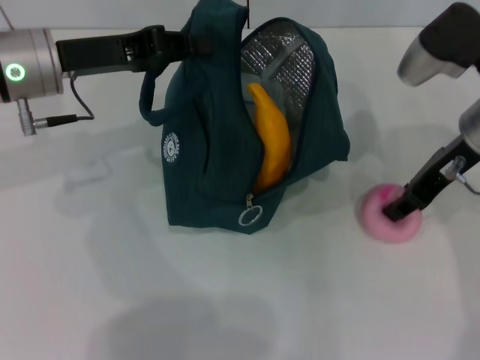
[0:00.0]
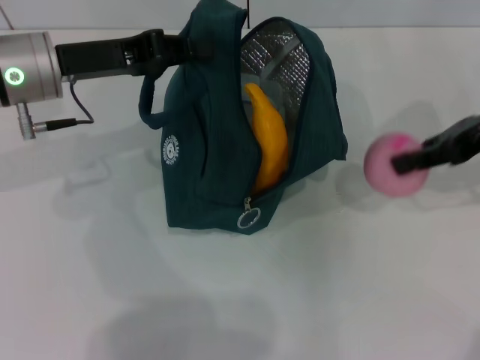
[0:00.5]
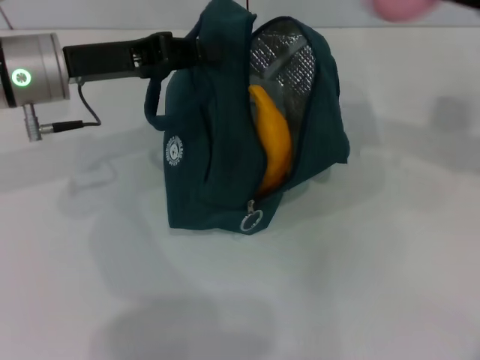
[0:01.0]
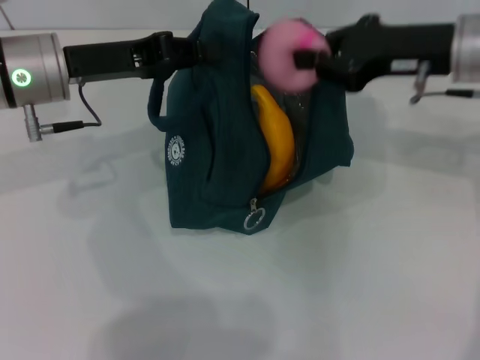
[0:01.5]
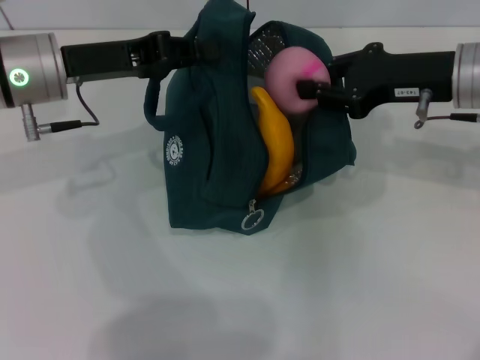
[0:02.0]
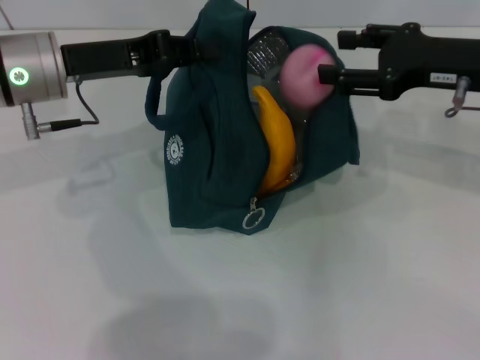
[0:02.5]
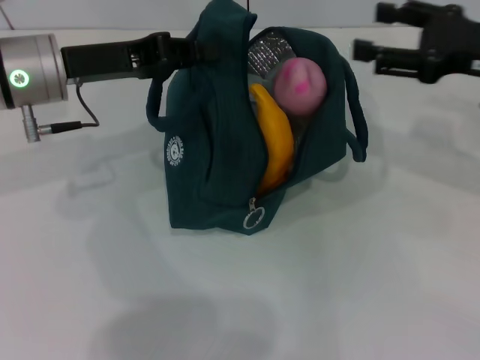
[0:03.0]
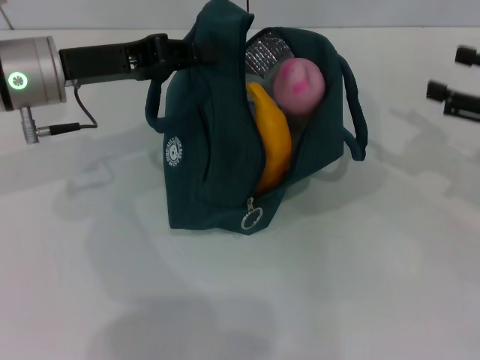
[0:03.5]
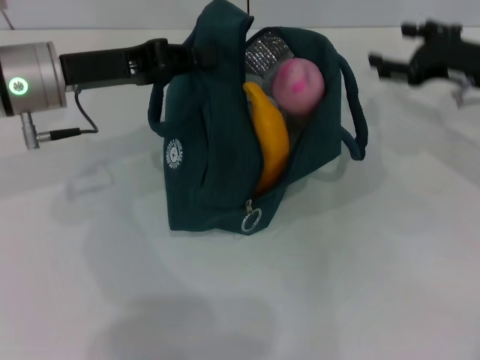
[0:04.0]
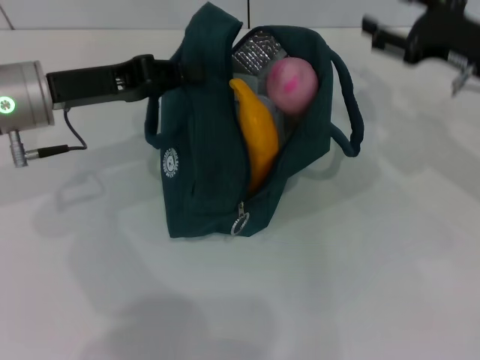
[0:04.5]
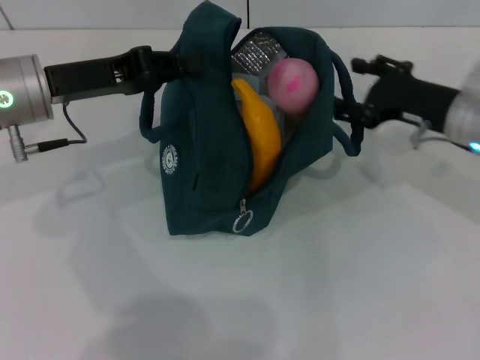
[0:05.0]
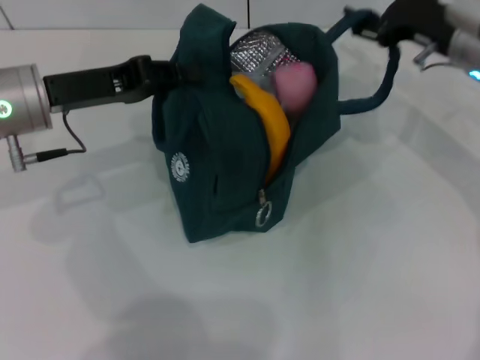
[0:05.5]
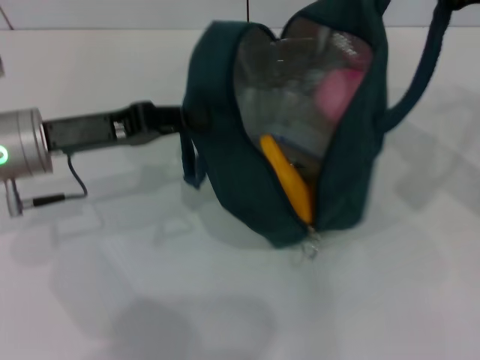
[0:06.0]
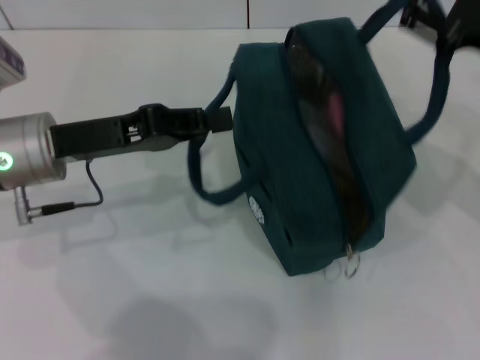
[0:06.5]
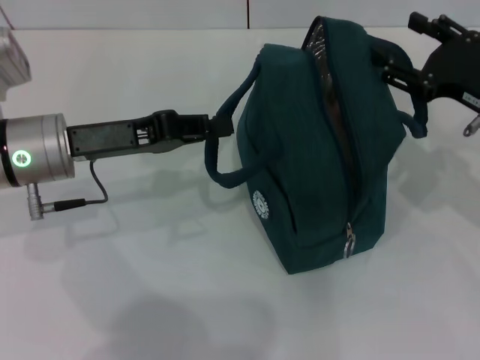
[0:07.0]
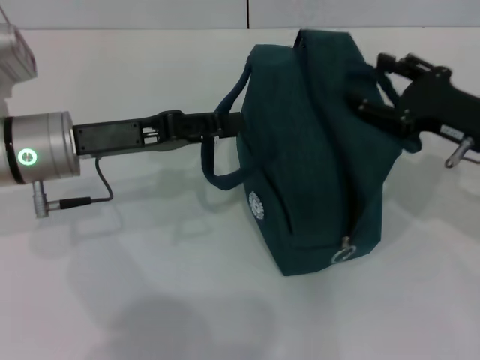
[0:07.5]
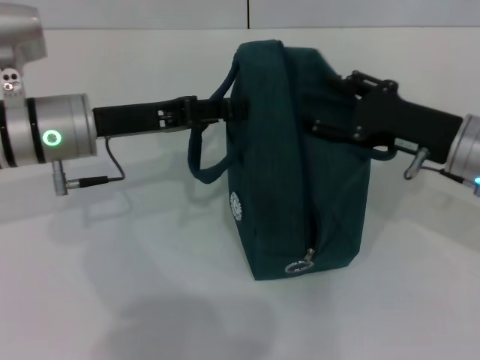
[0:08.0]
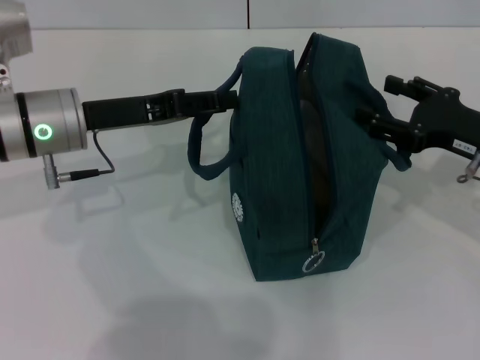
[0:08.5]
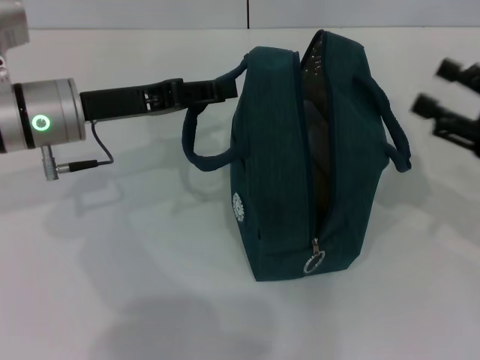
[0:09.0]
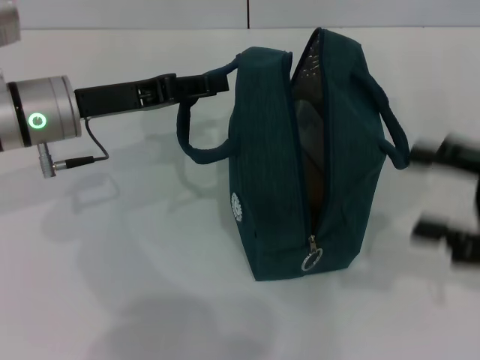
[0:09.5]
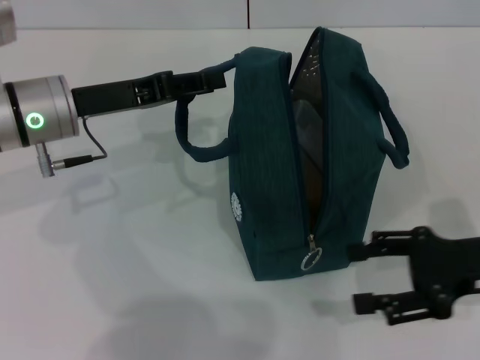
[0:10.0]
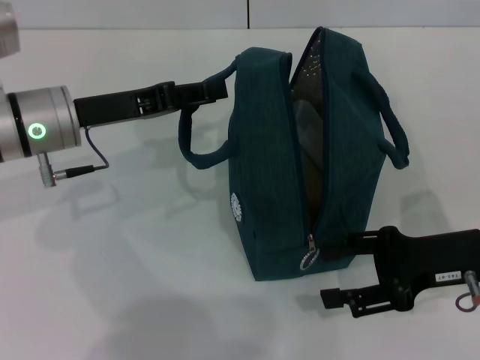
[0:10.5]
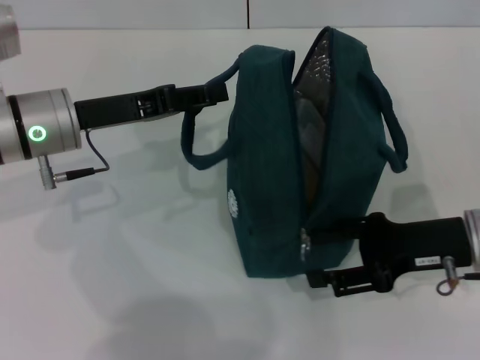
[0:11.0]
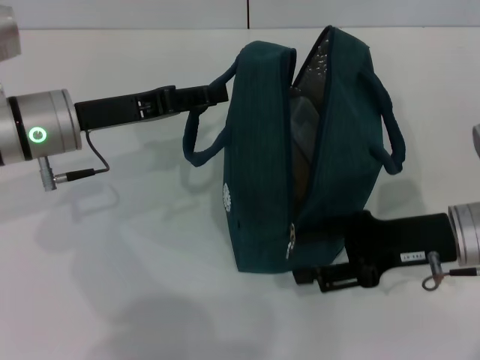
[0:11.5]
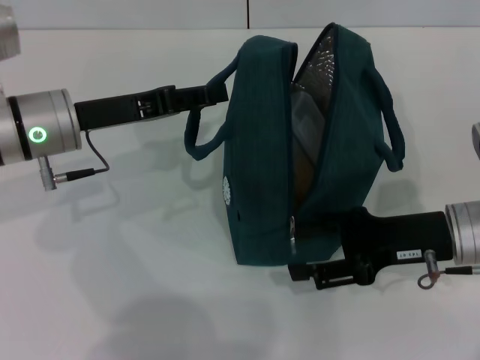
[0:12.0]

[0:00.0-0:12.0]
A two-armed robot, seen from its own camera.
Step, 3.0 to 7.0 s: Hold the lunch bag with your right hand.
Step, 7.5 to 8.5 s: Hold the lunch bag with your left hand.
0.0 to 2.0 s: The right gripper goes to the right and returns, some 10 cm each way, and closes up.
2.0 to 4.0 s: The right gripper travels to the right by approximately 5 cm, and opens.
4.0 to 6.0 s: The left gripper shifts by about 5 cm. Meanwhile the right gripper moves backward and upward, approximately 10 cm.
6.0 to 8.0 s: The left gripper opens up, while the right gripper travels downward by approximately 10 cm.
8.0 to 10.0 s: The right gripper is displaced backward and to the right by approximately 10 cm.
10.0 to 12.0 s: The right gripper heads to the left, covering roughly 5 cm.

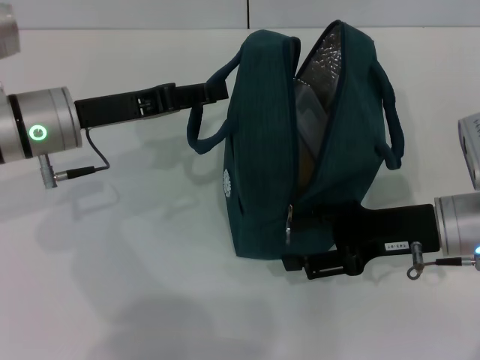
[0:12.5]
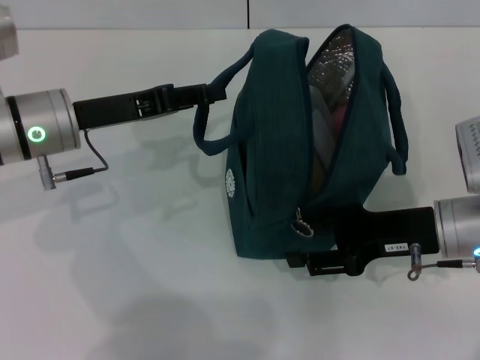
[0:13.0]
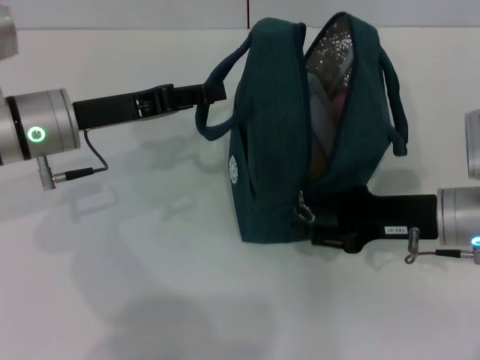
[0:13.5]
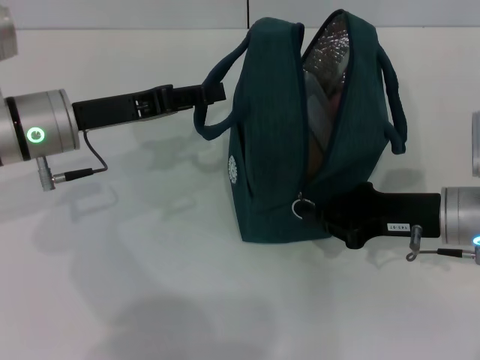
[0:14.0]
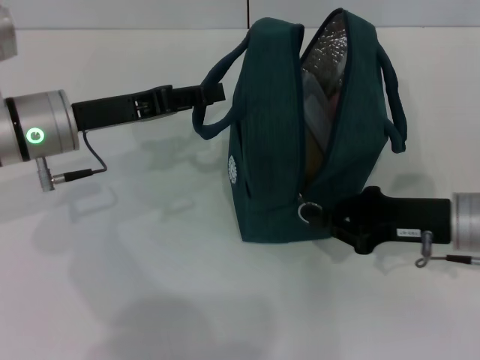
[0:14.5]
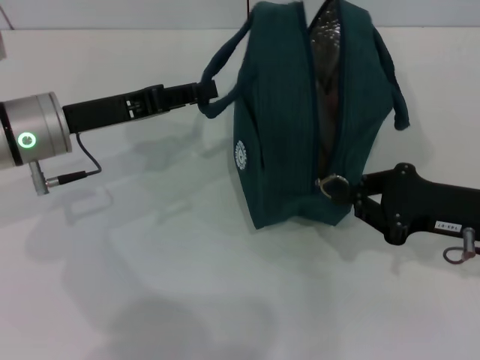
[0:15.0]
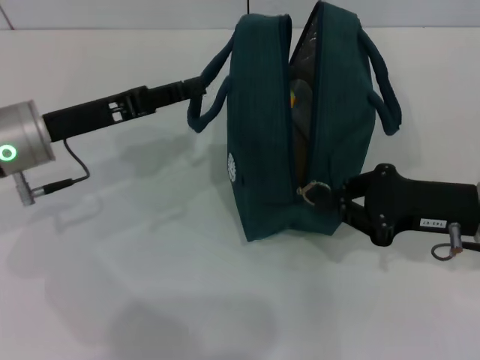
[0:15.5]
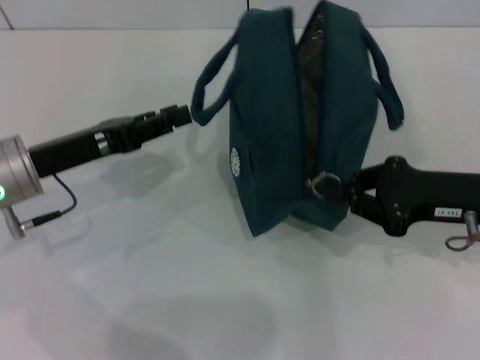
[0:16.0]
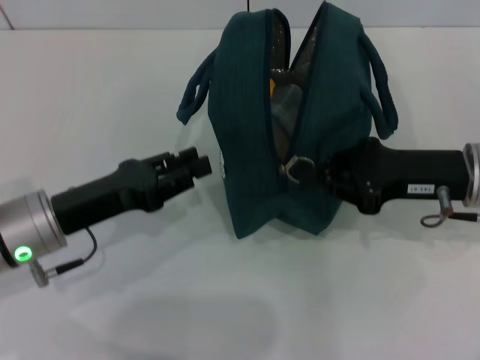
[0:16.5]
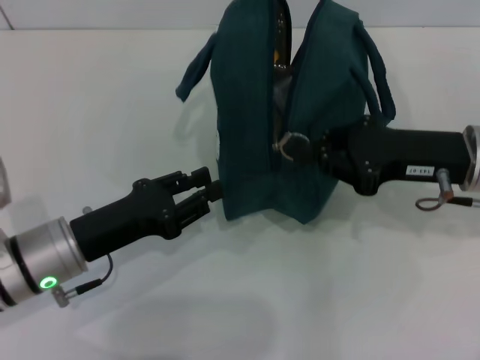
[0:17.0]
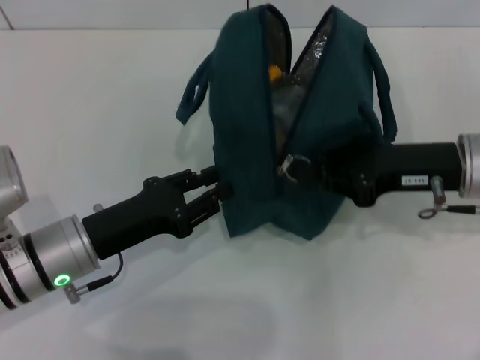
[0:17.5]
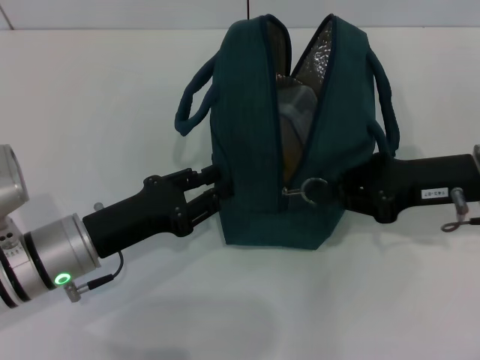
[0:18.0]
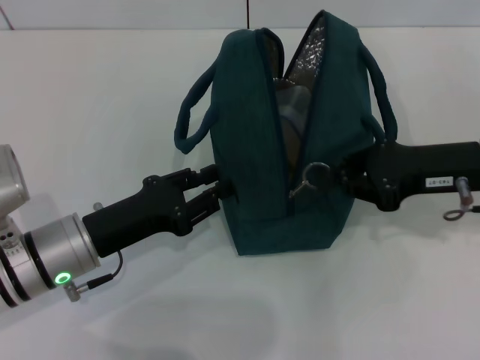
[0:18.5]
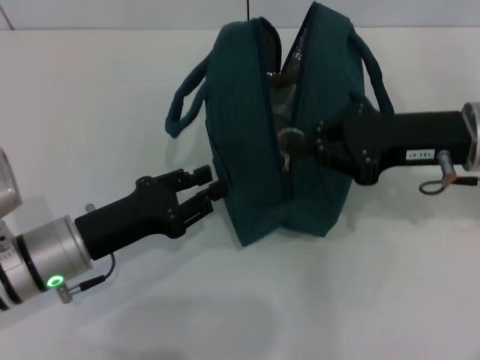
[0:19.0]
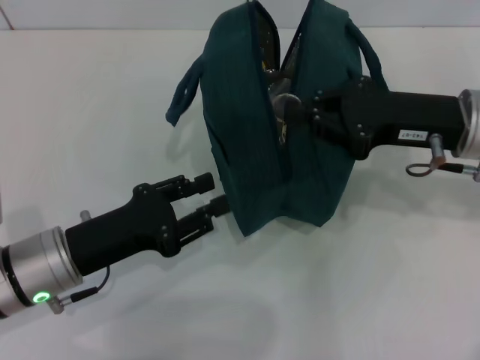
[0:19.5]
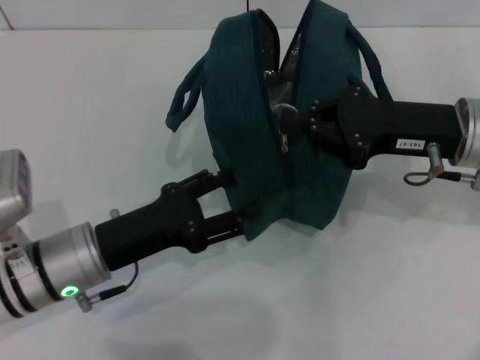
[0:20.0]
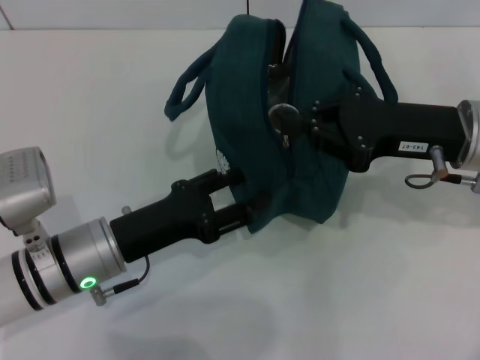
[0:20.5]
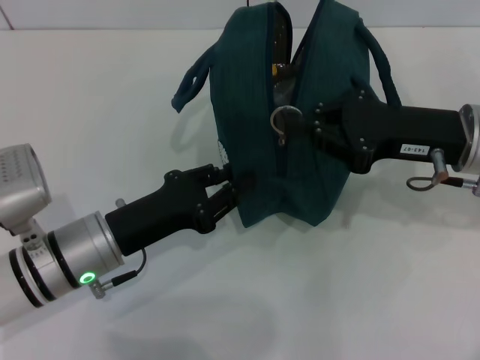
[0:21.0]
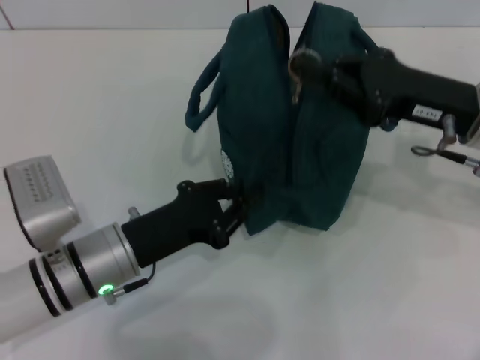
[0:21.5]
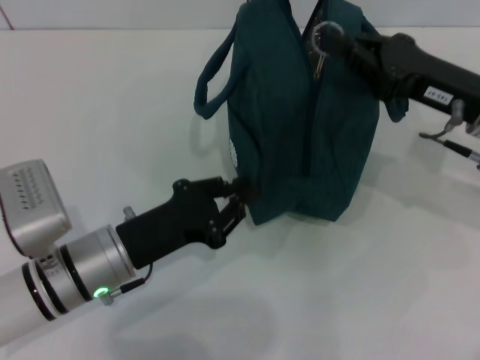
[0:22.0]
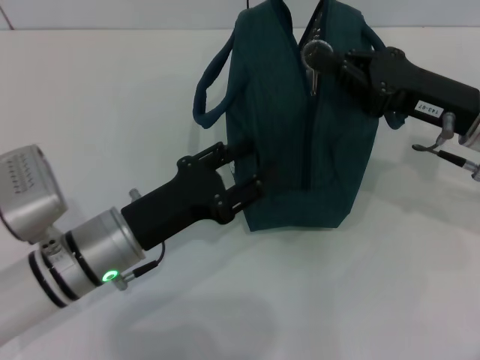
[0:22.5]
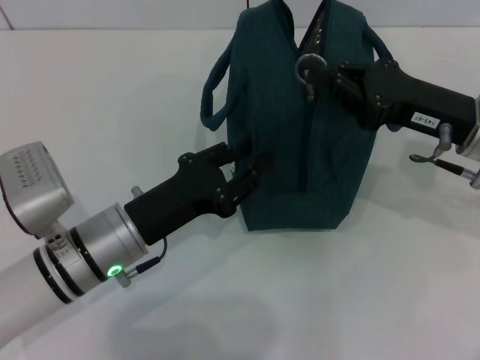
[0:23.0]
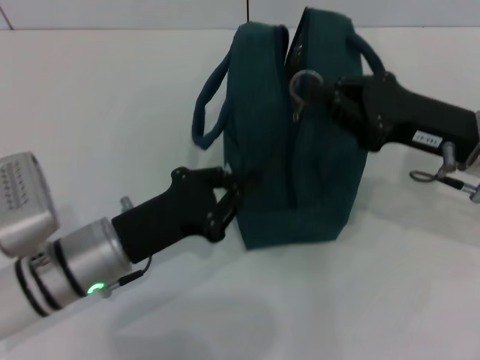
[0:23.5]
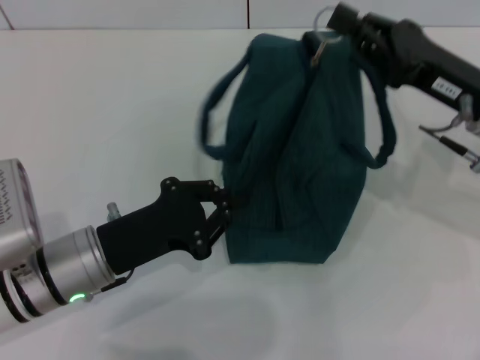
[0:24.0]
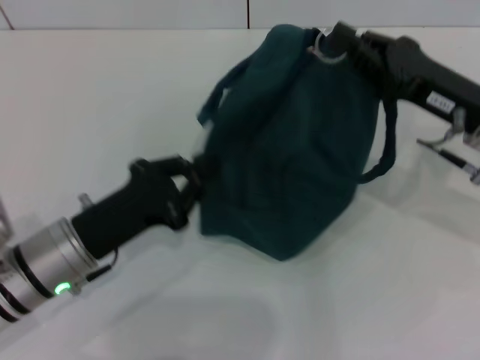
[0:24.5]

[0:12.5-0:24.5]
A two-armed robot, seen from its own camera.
12.5 to 14.5 s: The right gripper closes up.
14.5 to 16.5 s: The left gripper is displaced backward and downward by approximately 10 cm, while the right gripper shifts approximately 5 cm upward.
16.5 to 18.5 s: The grippers make only small movements.
18.5 to 20.5 s: The left gripper opens its fingers.
20.5 to 22.5 s: The left gripper closes up.
22.5 to 24.5 s: The left gripper closes up.

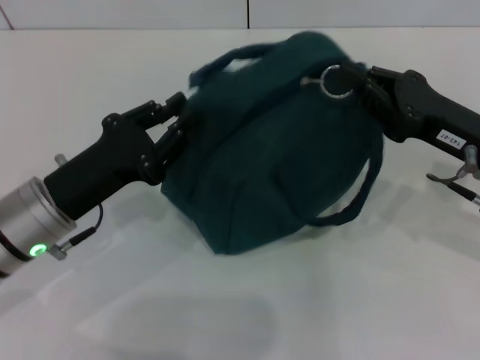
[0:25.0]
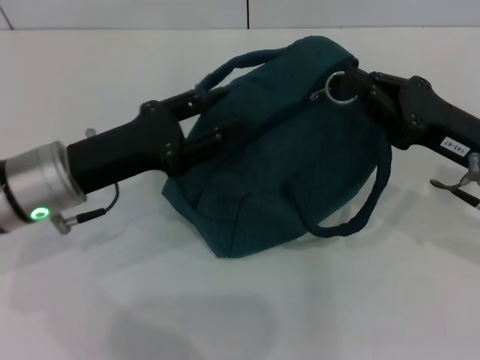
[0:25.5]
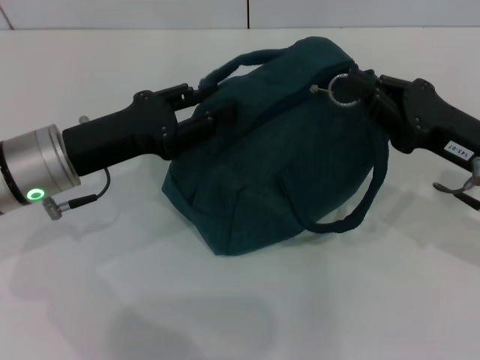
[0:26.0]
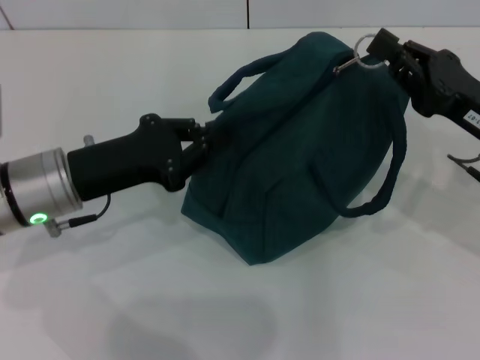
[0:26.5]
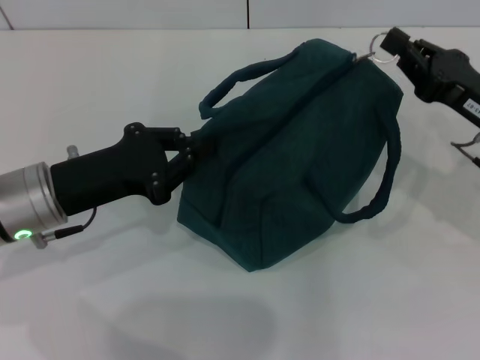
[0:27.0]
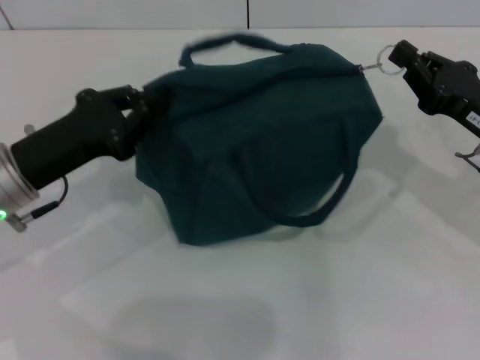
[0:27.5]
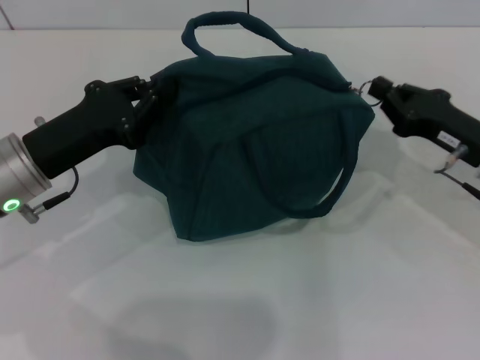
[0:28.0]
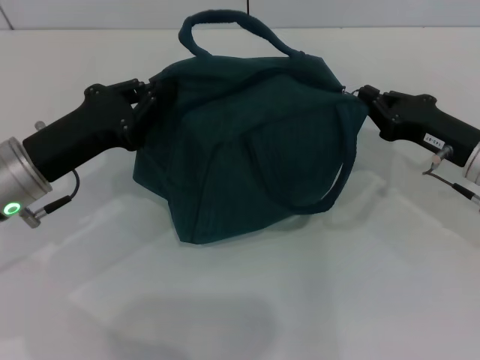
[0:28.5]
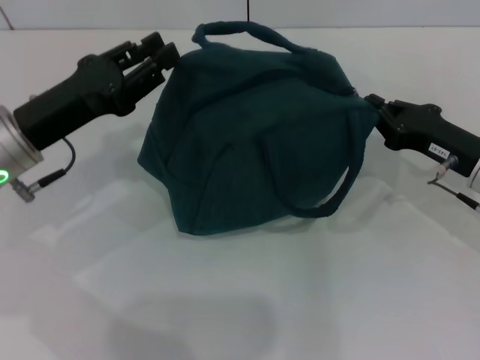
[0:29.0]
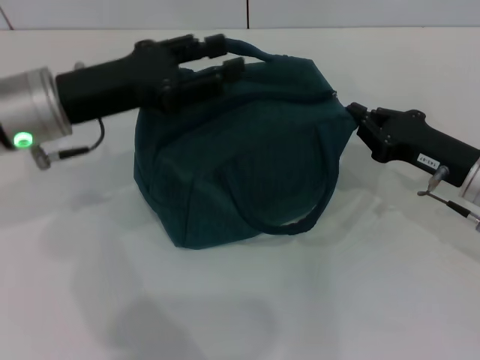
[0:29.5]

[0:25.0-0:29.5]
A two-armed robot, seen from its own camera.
25.0 to 27.0 s: The left gripper opens and closes again.
27.0 to 29.5 s: The left gripper is displaced upward by approximately 5 cm, and opens.
